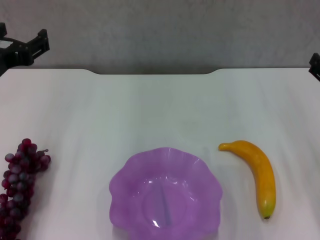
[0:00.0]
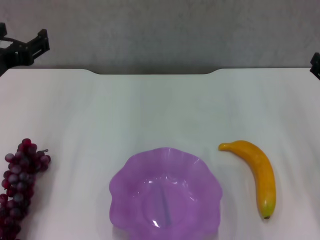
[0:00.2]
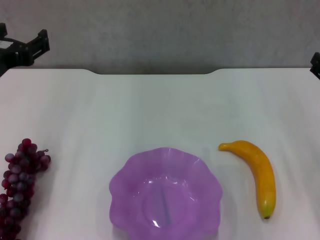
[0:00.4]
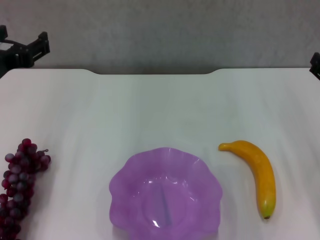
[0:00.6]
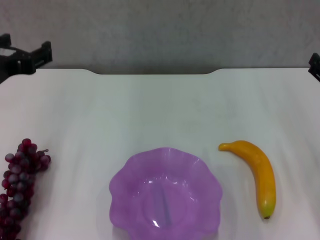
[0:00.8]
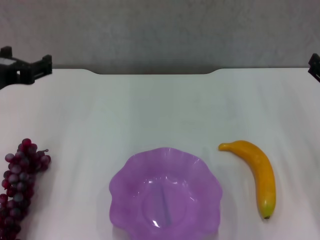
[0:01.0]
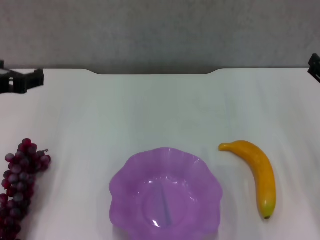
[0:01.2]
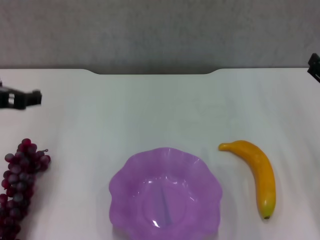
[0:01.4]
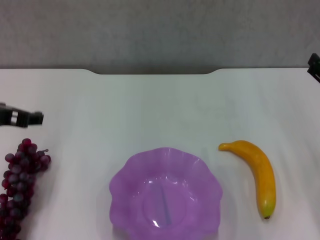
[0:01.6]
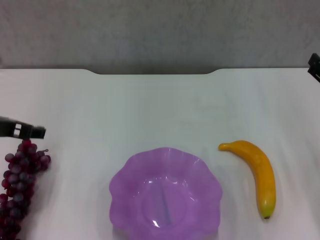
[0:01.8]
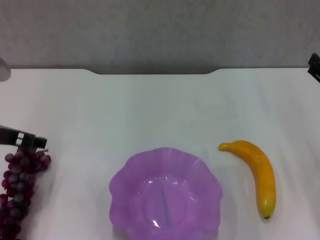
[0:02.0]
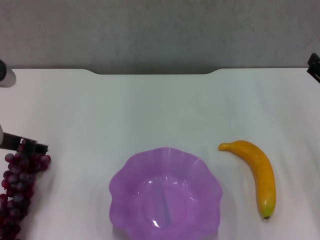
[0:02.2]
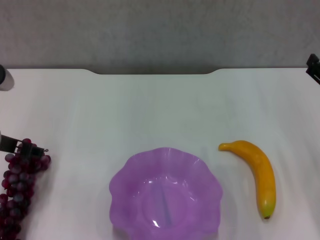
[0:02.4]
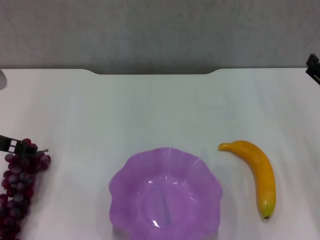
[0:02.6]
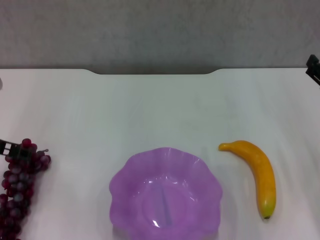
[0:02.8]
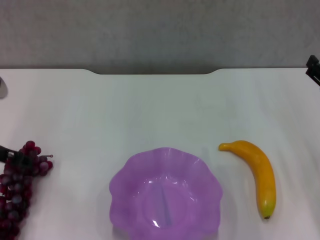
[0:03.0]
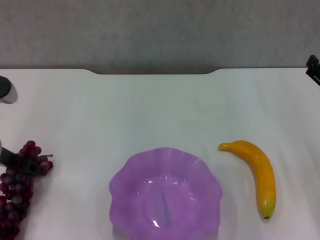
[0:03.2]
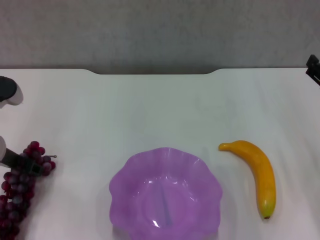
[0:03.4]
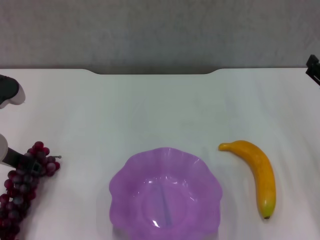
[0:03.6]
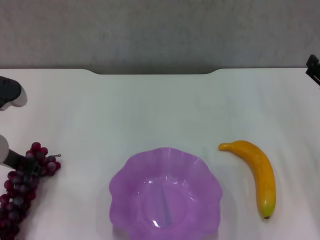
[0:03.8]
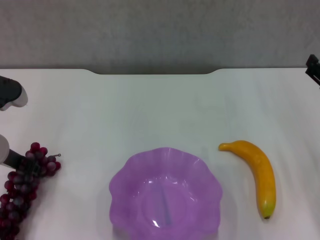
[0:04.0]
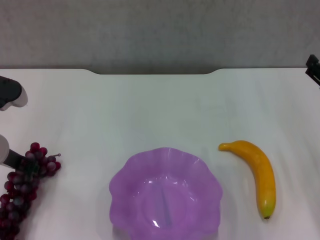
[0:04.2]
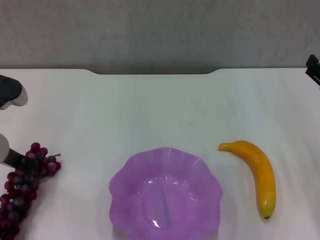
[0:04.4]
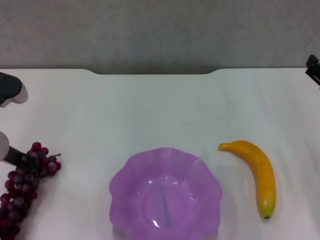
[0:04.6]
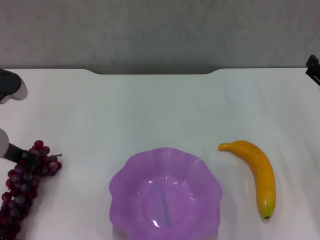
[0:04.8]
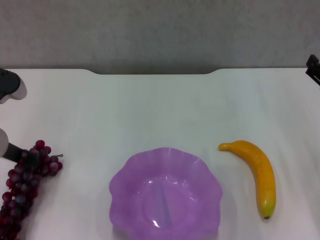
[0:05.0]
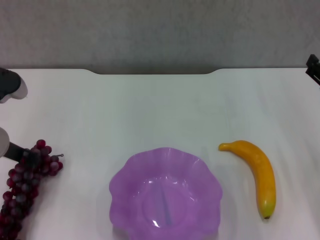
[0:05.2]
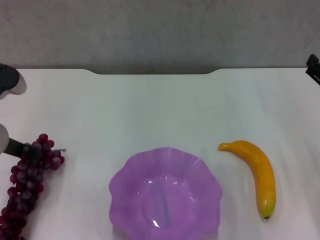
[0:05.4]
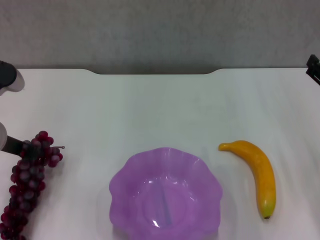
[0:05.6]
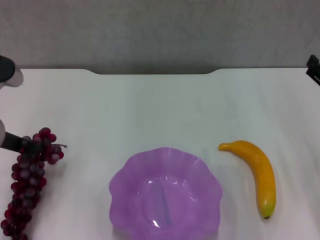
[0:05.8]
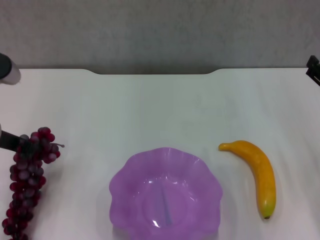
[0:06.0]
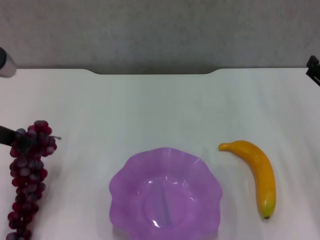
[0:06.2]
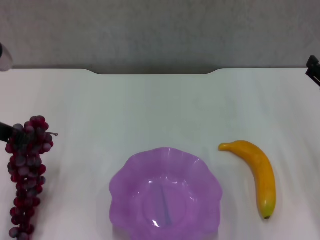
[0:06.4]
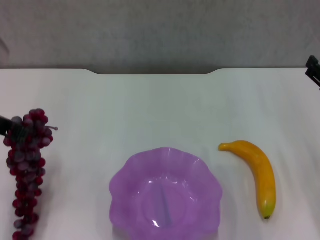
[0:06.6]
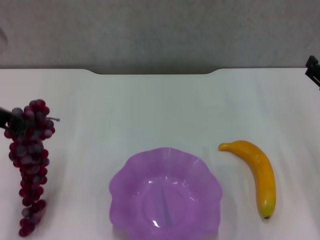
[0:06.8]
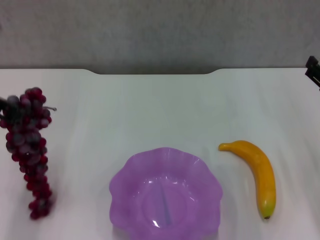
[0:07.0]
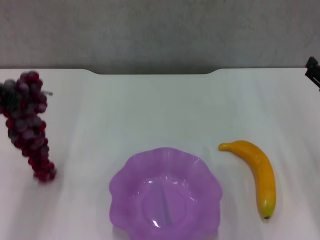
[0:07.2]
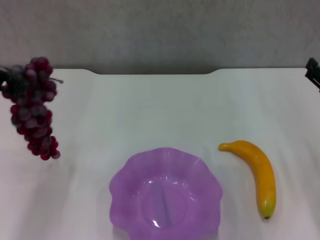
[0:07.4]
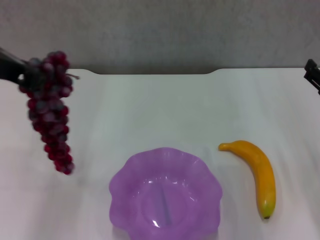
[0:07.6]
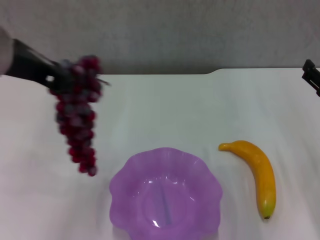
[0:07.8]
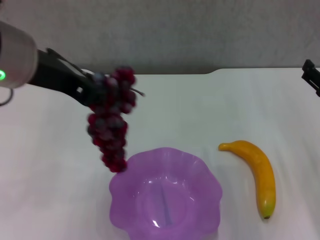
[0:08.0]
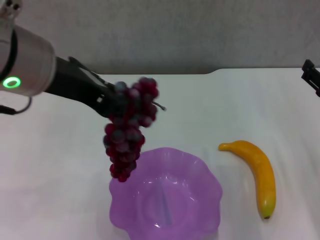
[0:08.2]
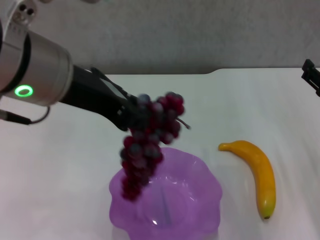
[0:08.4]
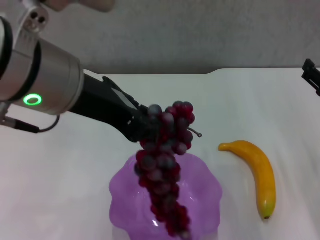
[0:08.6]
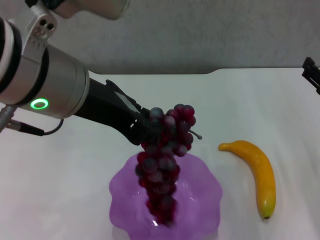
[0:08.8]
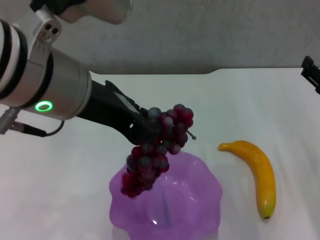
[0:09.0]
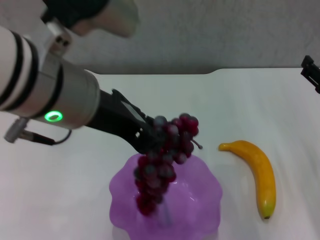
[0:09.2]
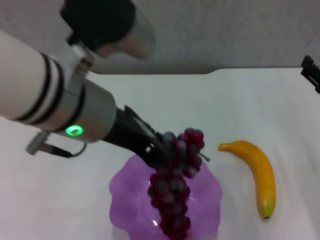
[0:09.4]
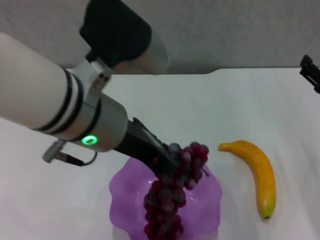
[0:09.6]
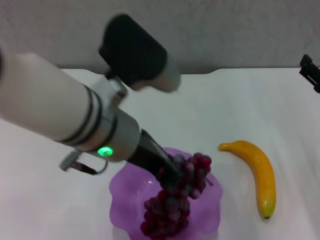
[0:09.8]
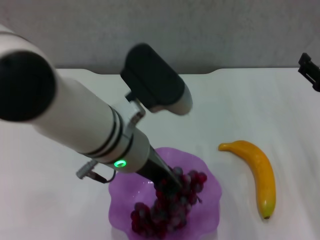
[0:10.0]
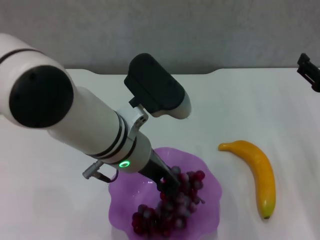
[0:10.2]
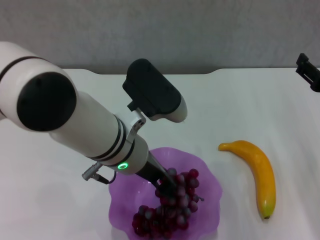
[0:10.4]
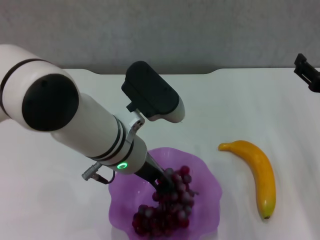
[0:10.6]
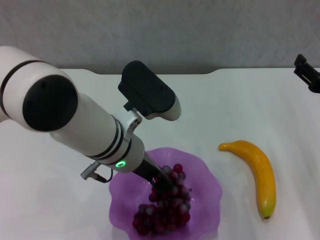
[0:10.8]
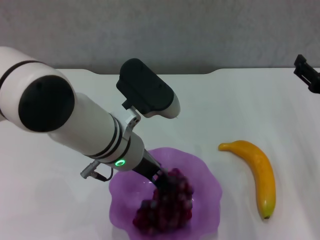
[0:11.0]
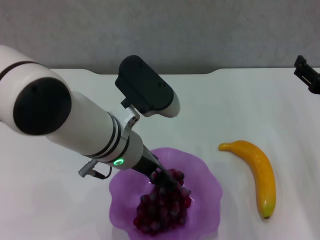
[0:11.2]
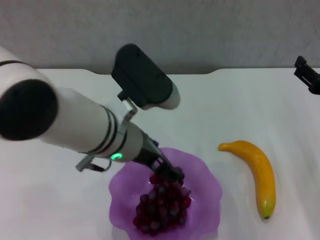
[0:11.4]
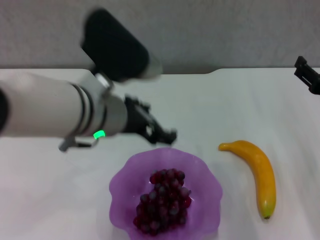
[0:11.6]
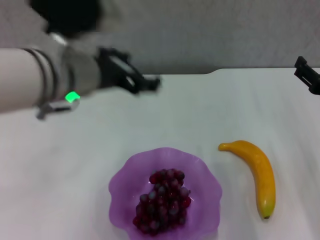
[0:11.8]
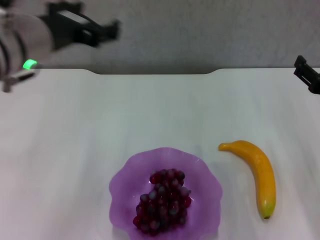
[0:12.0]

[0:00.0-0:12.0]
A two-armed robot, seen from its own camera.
Step, 0:00.0 to 0:04.4: Grasp the grape with left gripper.
Step, 0:04.6 to 0:11.4: Place the grape in the purple plate with left gripper.
0:01.6 to 0:03.0: The left gripper shifts about 5 cm downward.
0:03.0 to 0:04.4: The left gripper closes up.
0:04.4 to 0:06.0: The left gripper travels upward by about 5 cm.
0:06.0 to 0:07.6: The left gripper heads upward, covering some 15 cm.
0:07.6 to 0:09.0: The left gripper goes some 10 cm to the right.
0:09.0 to 0:10.4: The left gripper goes about 15 cm downward.
0:10.4 to 0:12.0: The left gripper moves to the left and upward, about 15 cm, and opens its fingers.

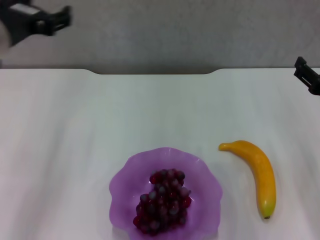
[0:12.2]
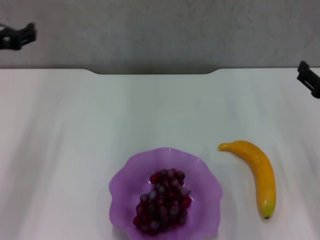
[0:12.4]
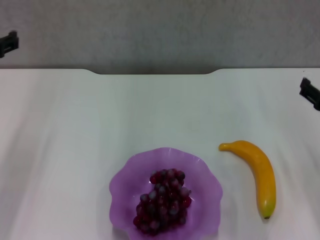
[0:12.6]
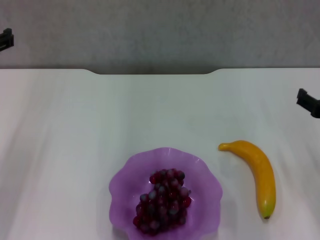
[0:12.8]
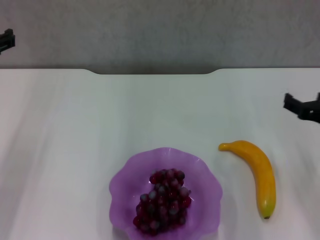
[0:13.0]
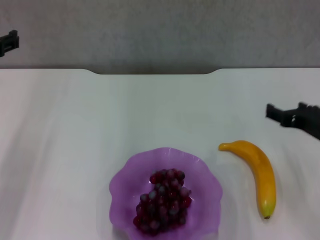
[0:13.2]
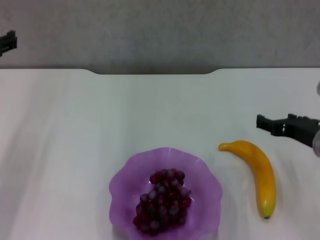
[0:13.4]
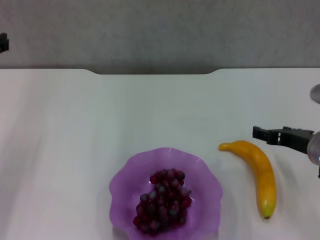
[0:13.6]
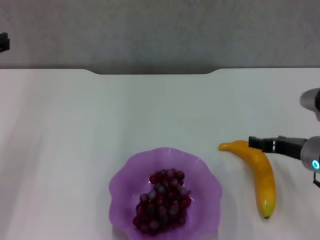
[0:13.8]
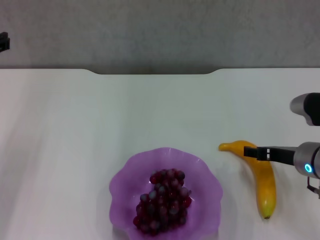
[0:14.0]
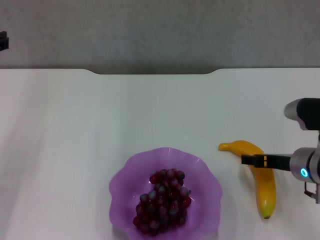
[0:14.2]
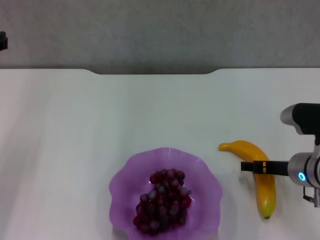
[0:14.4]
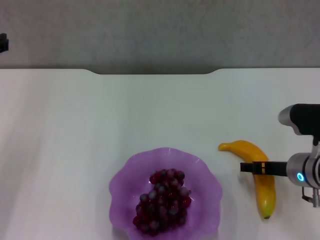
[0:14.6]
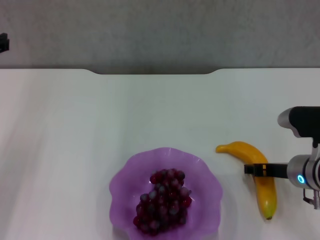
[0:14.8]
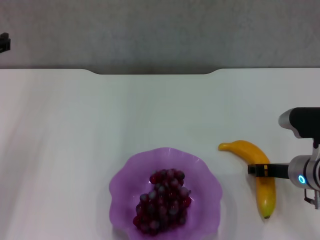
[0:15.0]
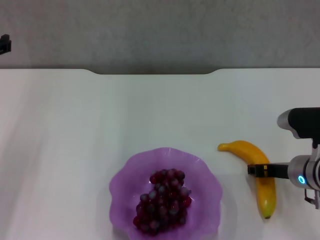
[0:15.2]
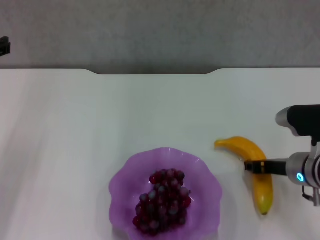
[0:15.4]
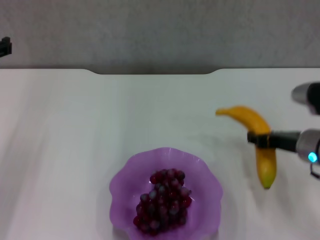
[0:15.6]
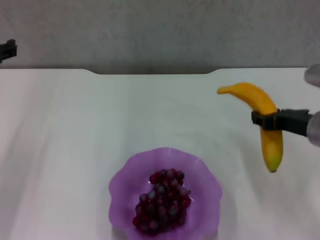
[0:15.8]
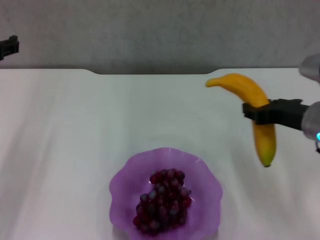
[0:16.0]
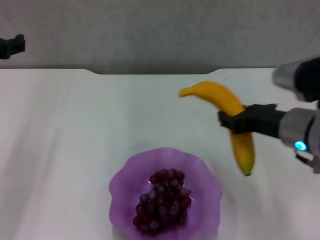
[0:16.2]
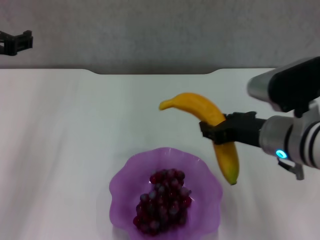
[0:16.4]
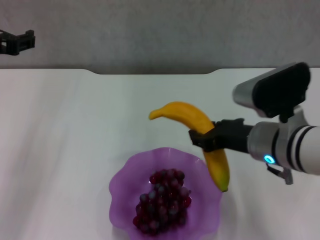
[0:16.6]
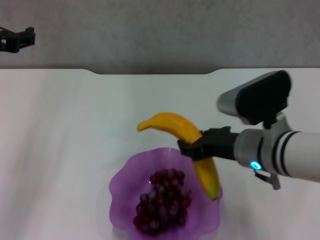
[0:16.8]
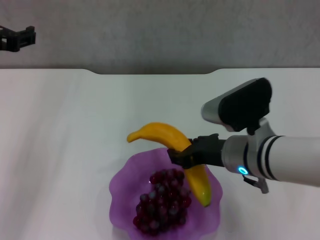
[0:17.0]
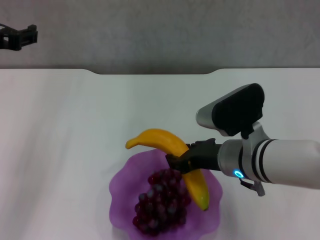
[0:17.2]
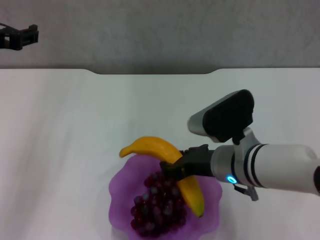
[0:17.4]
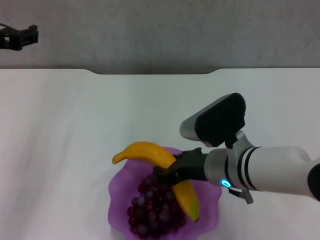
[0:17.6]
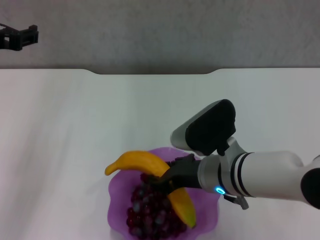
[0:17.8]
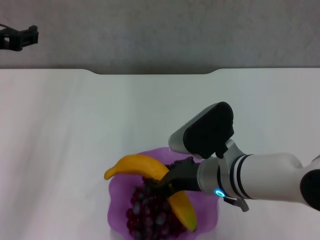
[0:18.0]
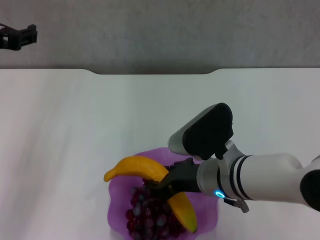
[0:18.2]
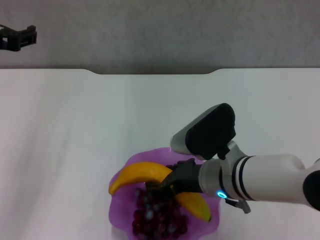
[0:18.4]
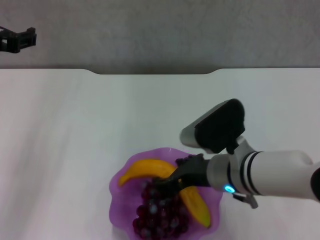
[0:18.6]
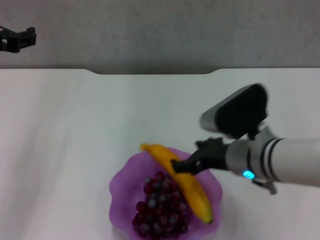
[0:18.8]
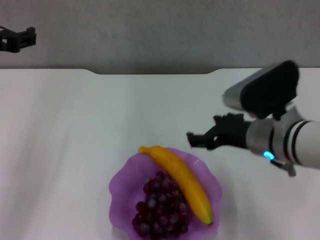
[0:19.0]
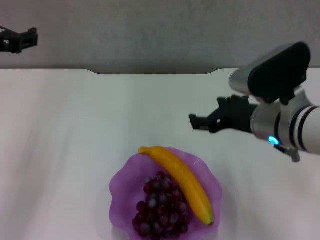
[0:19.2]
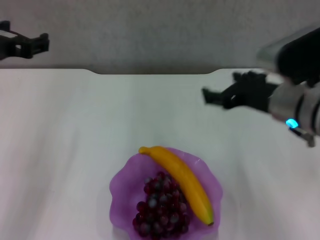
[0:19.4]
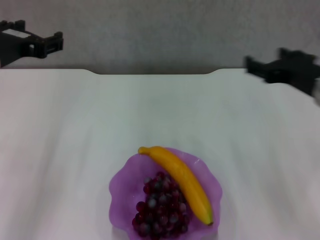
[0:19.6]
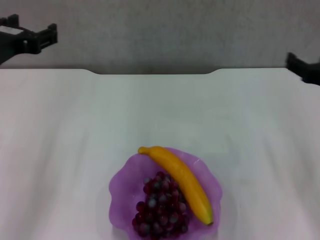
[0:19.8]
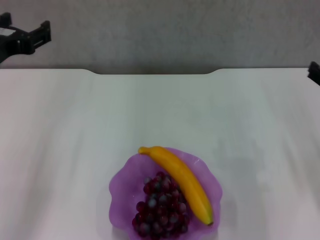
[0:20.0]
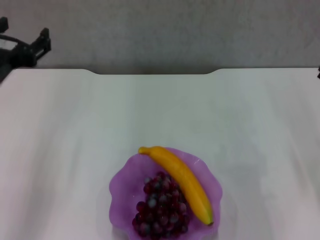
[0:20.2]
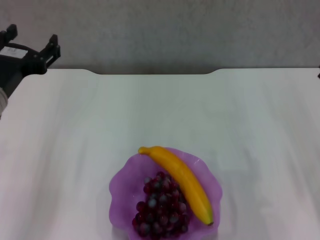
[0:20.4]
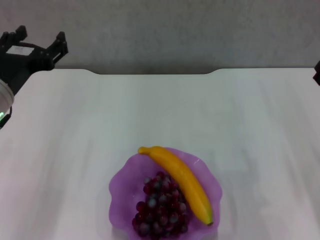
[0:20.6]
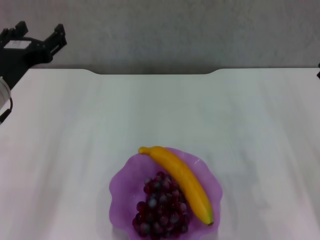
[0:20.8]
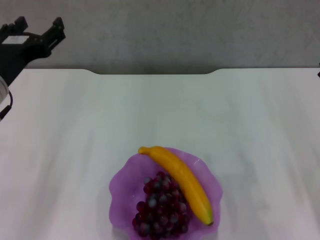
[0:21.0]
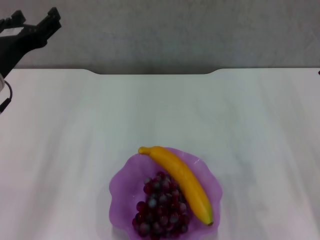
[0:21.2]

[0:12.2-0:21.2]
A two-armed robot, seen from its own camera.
Step, 0:12.2 to 0:15.2: Grasp the banana with right gripper.
Step, 0:15.4 to 0:18.8: Place the banana in the purple plate with right gripper.
0:12.2 to 0:13.8: The left gripper goes some 5 cm to the left. Meanwhile the right gripper shifts by some 5 cm.
0:13.8 to 0:15.2: The right gripper closes its fingers.
0:15.2 to 0:16.6: The right gripper shifts approximately 10 cm upward and to the left.
0:16.6 to 0:18.2: The right gripper heads to the left, covering approximately 5 cm.
0:18.2 to 0:19.8: The right gripper is displaced to the right by about 20 cm, and opens its fingers.
0:19.8 to 0:21.2: The right gripper travels backward and downward by about 5 cm.
